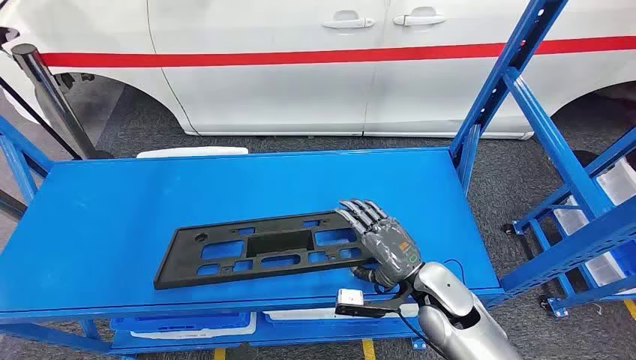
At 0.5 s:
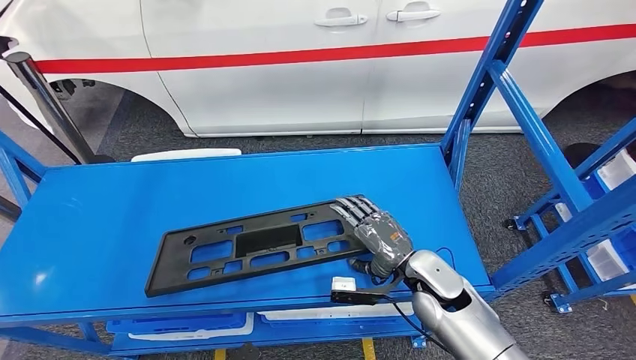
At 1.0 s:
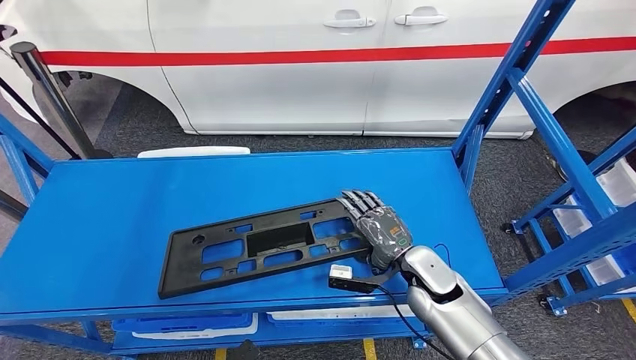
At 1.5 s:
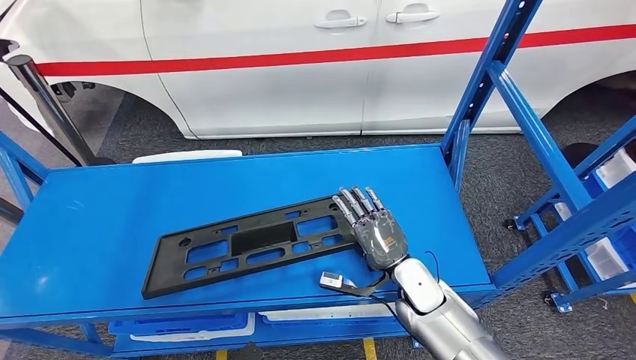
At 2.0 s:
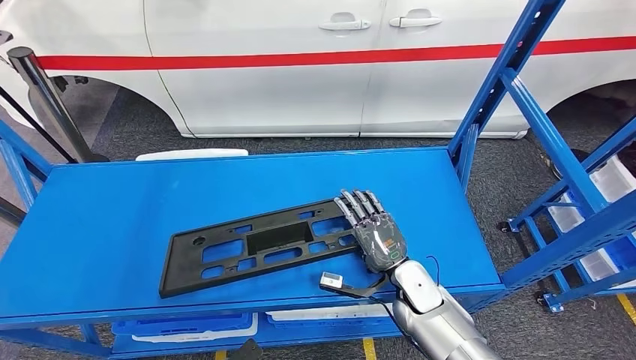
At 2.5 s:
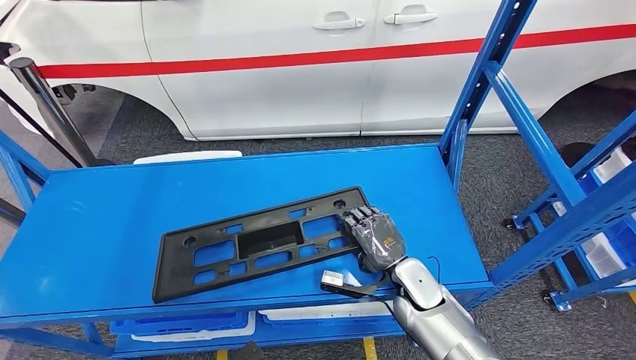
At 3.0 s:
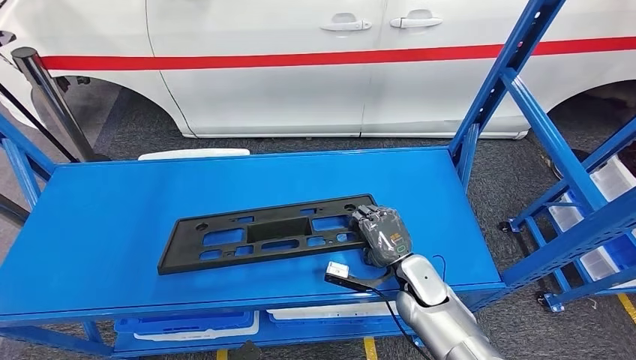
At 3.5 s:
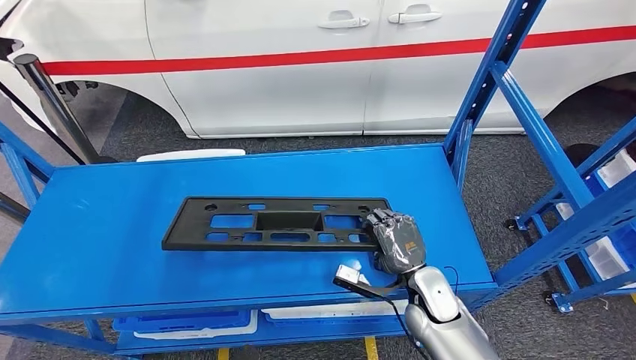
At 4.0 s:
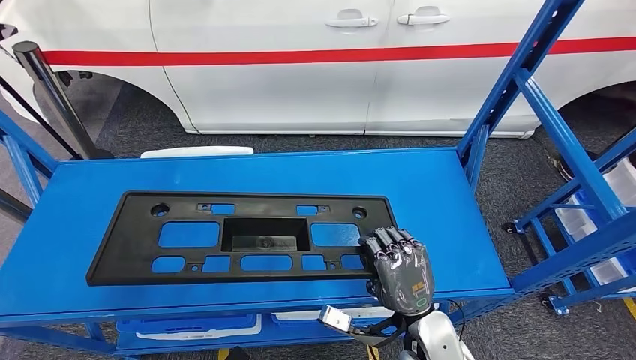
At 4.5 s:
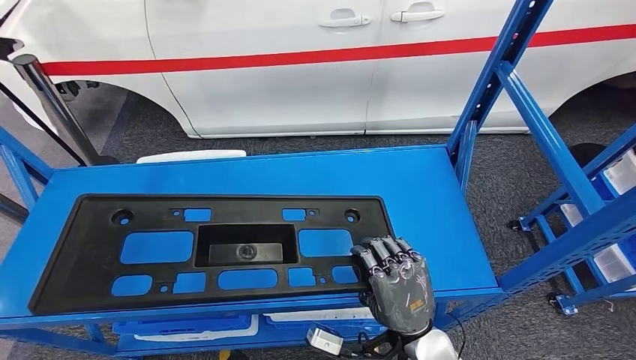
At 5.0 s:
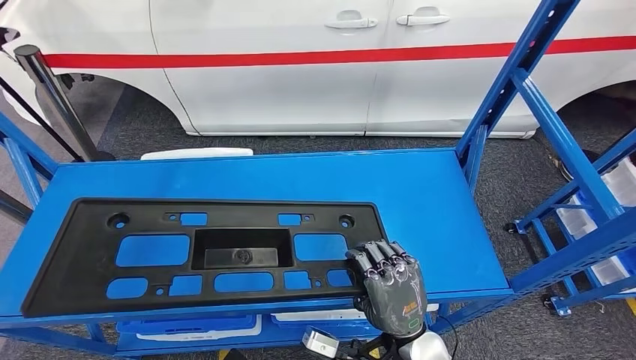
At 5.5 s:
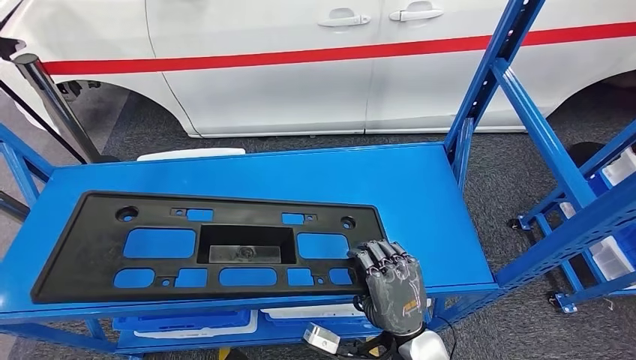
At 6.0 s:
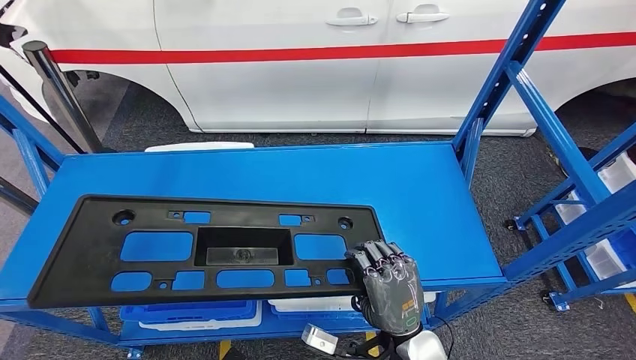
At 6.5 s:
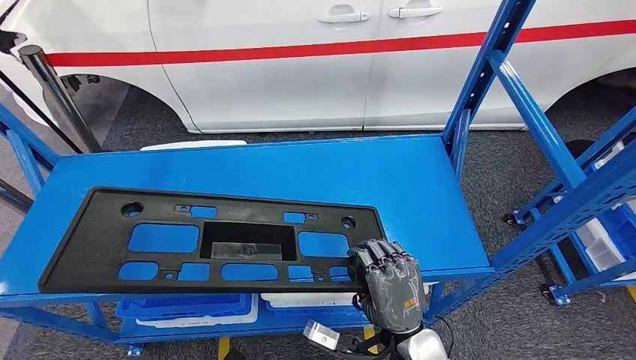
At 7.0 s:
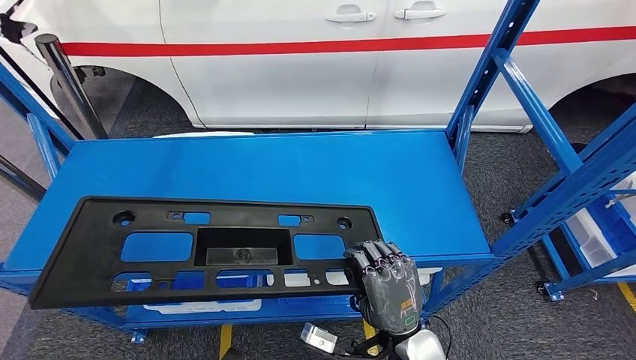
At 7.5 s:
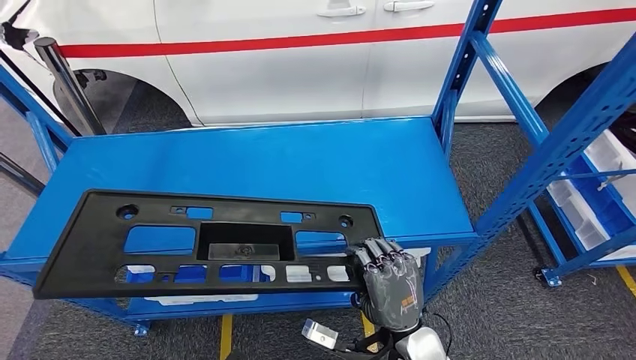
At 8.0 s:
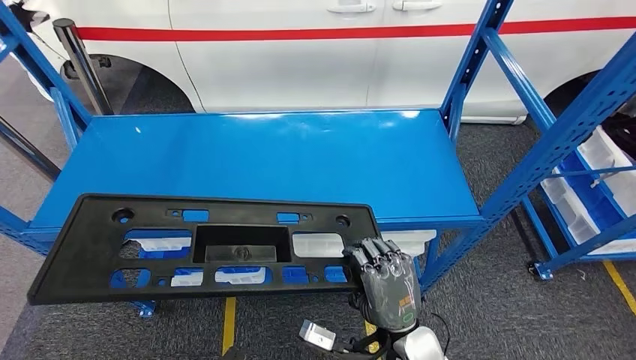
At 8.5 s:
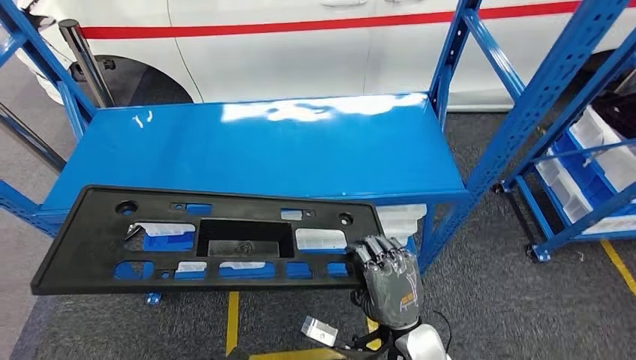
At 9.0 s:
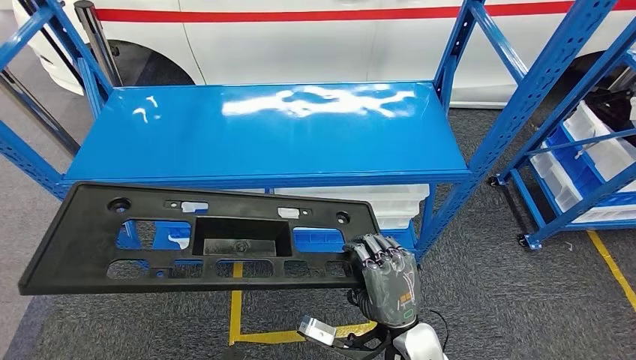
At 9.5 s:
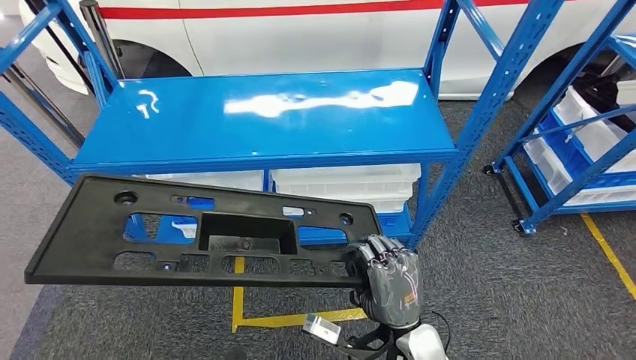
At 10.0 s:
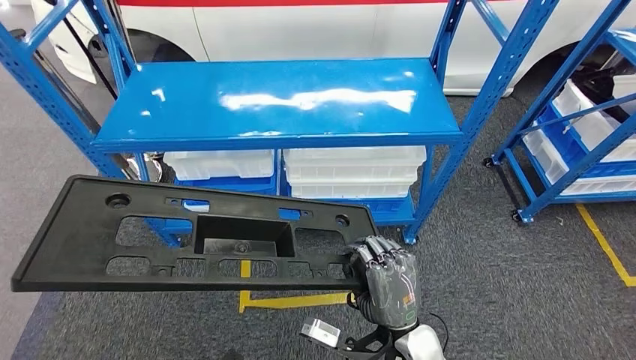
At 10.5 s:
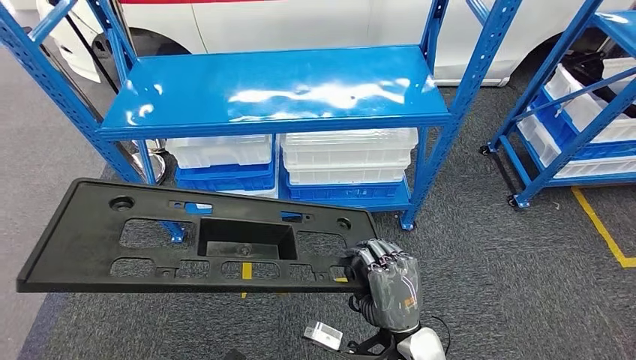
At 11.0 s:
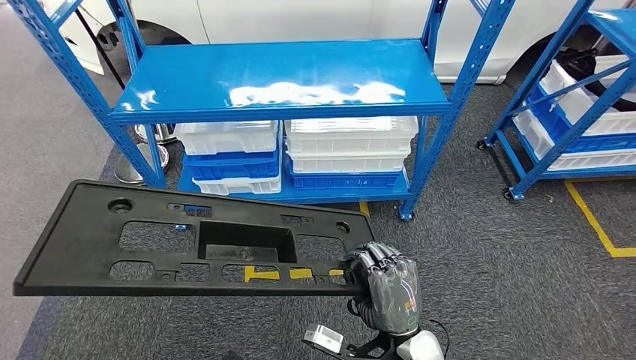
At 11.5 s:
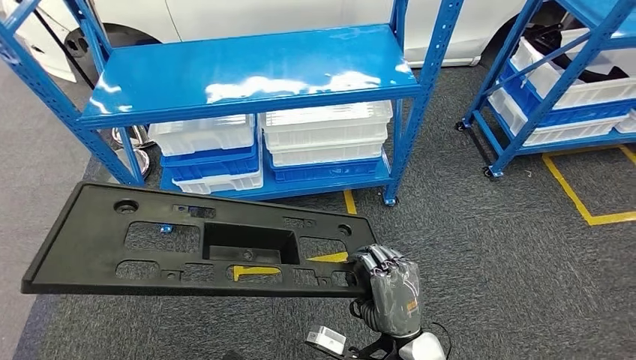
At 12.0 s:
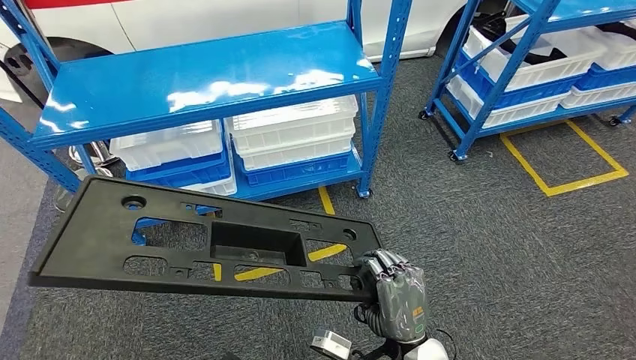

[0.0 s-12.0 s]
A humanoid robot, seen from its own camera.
Step, 0.0 to 4.0 s: Pick up the large material from the shelf.

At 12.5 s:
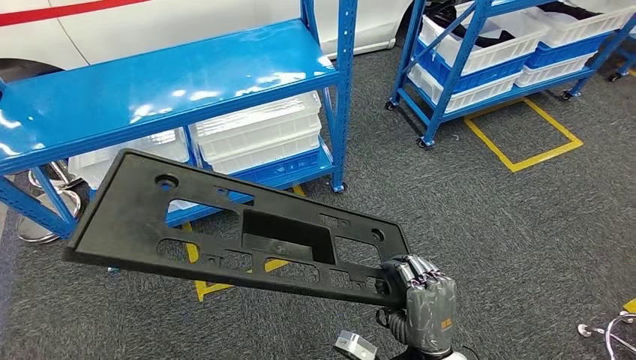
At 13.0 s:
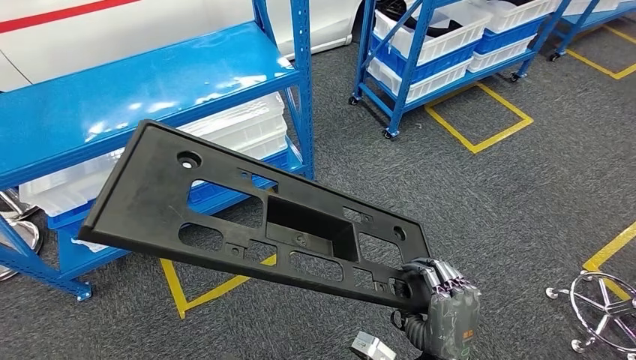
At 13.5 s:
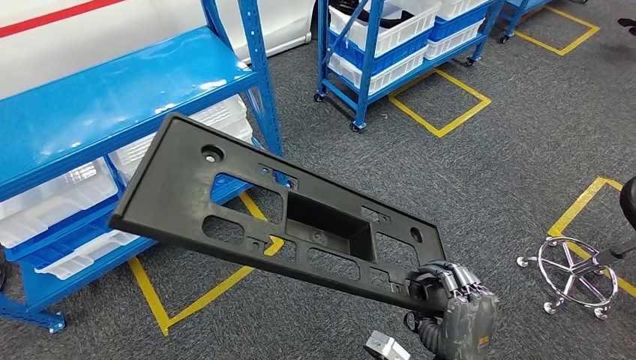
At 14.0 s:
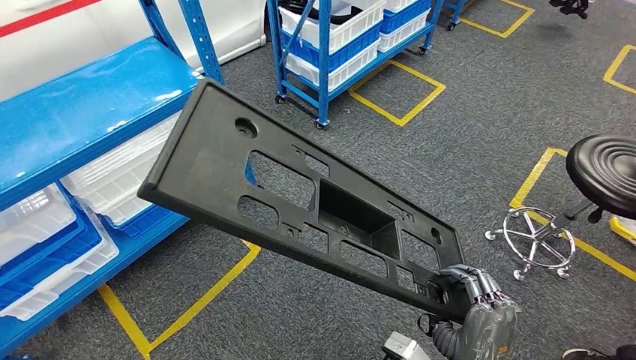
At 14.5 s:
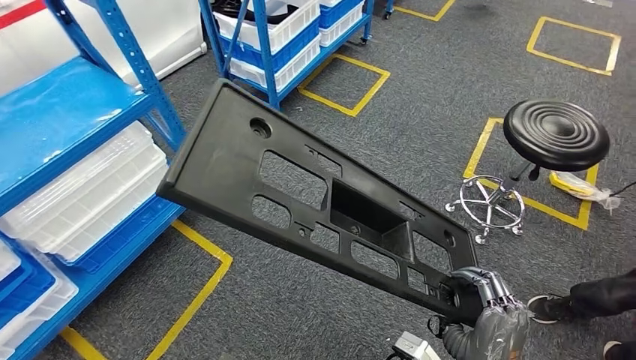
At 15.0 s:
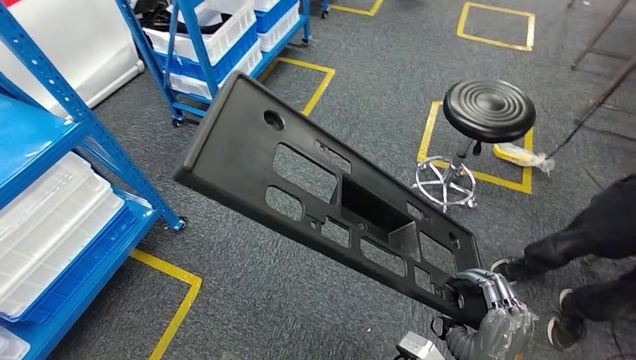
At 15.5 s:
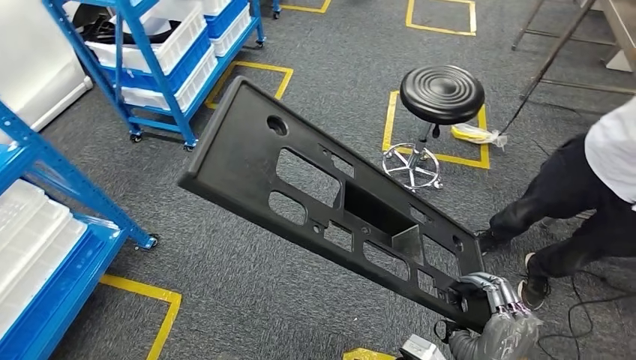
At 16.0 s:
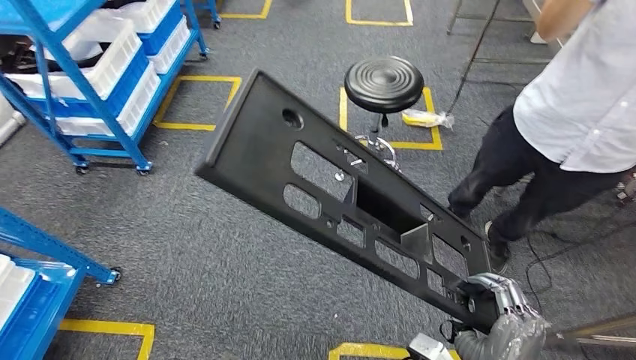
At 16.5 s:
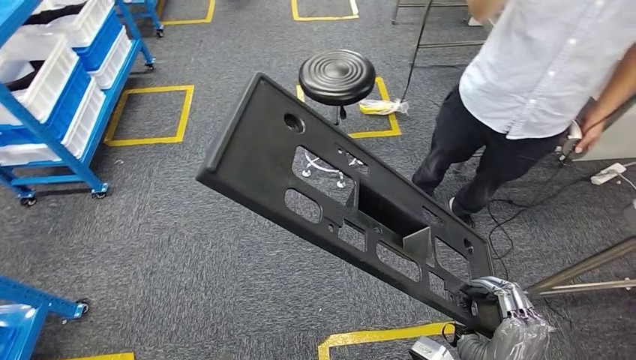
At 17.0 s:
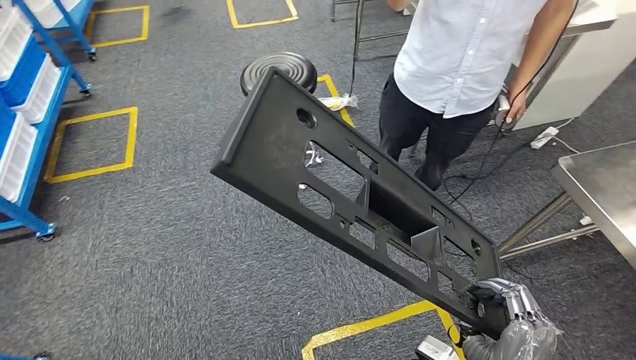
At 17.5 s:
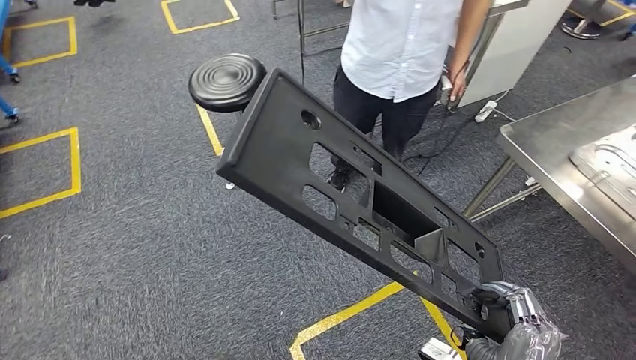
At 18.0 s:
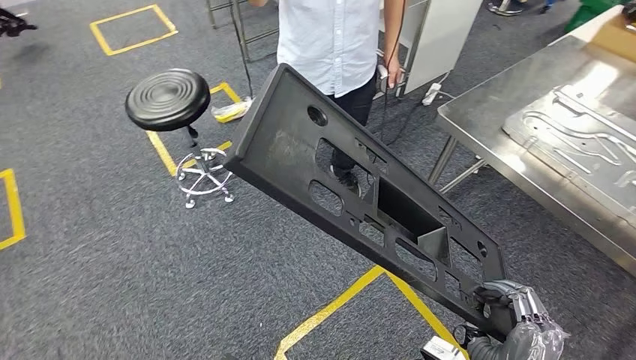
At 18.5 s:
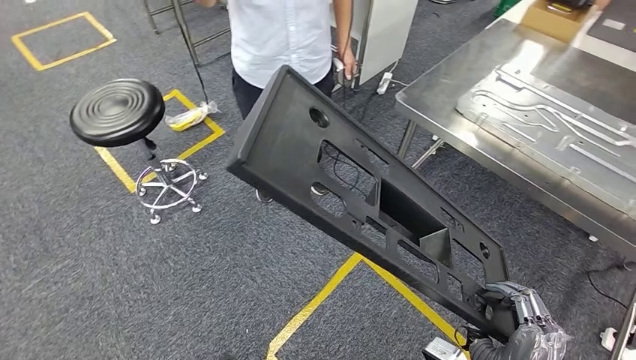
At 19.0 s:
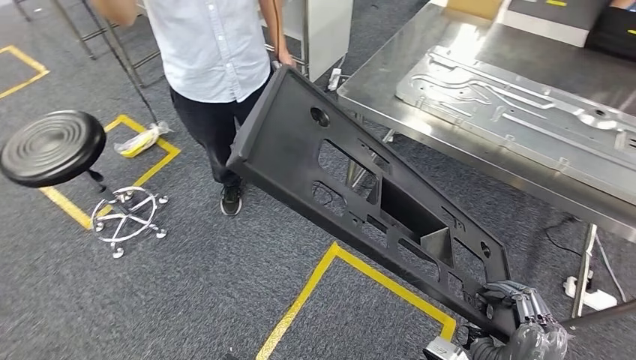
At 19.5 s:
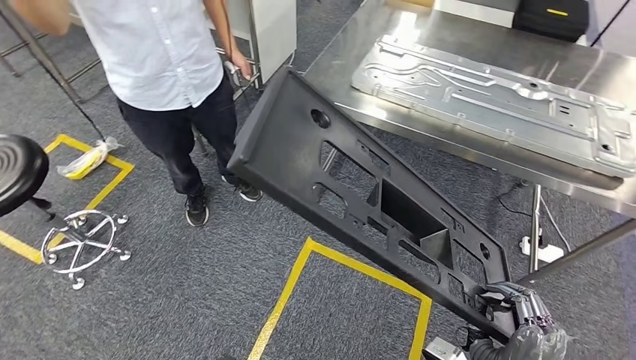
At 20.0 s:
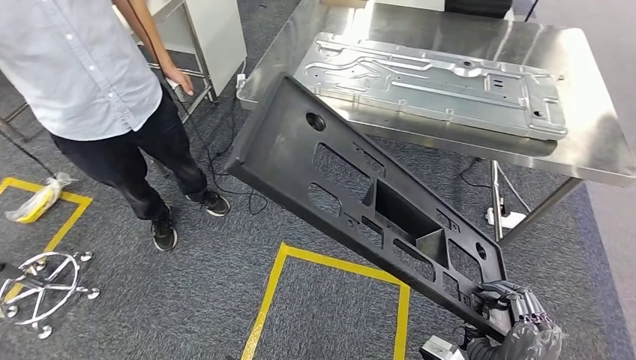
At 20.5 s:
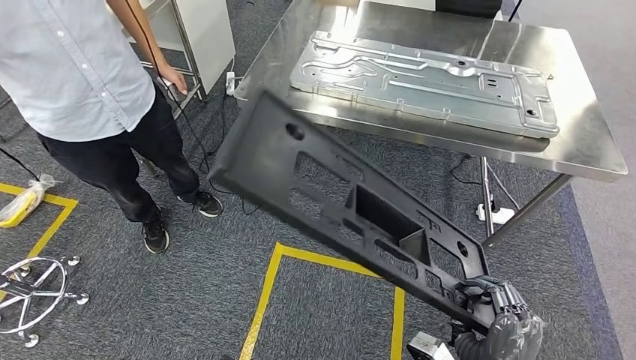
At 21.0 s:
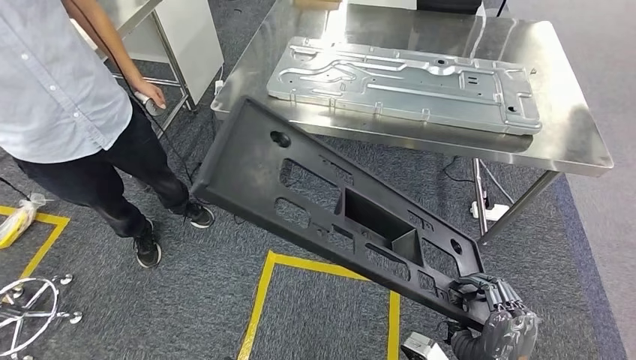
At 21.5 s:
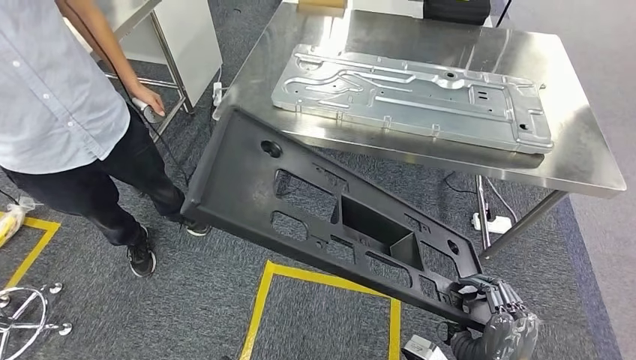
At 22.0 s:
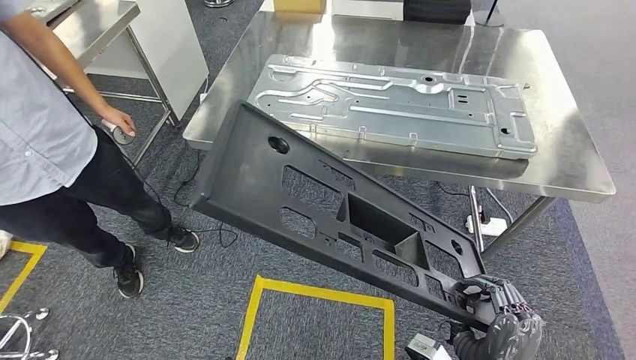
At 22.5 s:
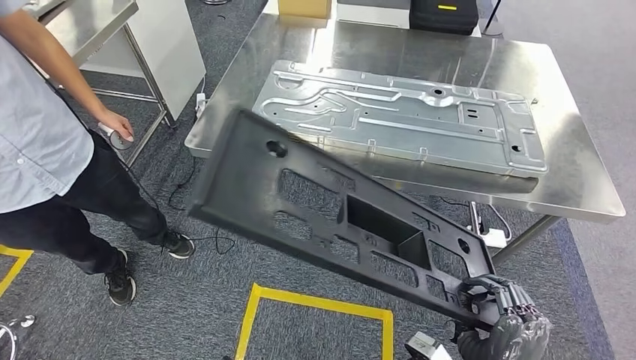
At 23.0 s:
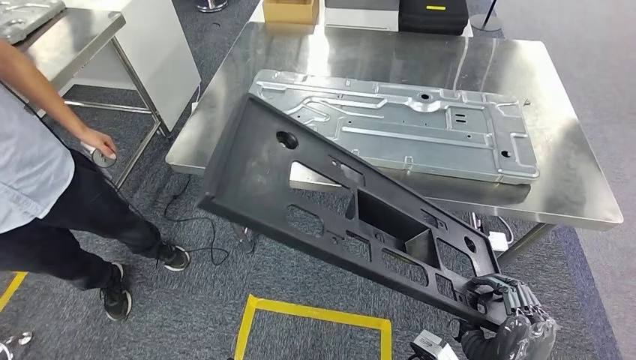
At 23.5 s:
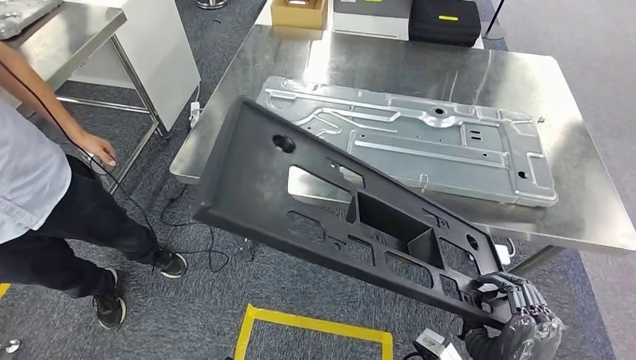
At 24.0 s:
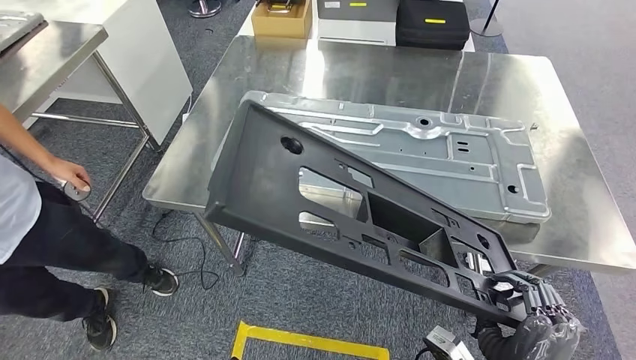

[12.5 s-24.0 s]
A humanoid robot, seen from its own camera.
Step, 12.5 to 23.0 s: Move the large material to the workbench.
